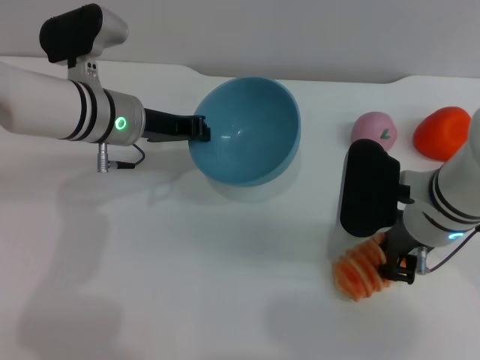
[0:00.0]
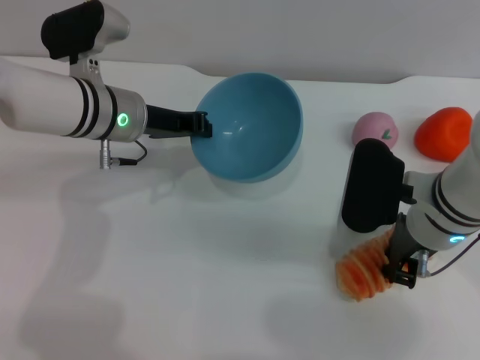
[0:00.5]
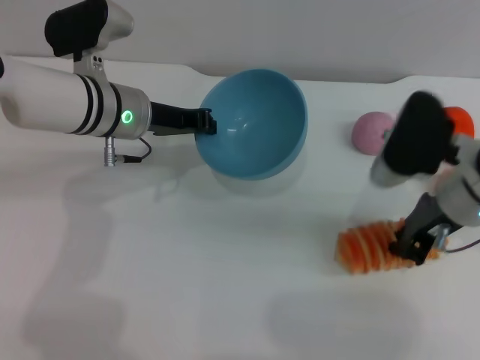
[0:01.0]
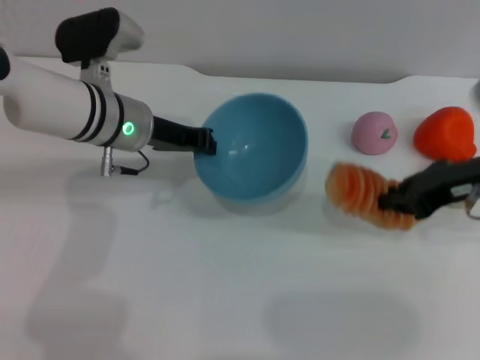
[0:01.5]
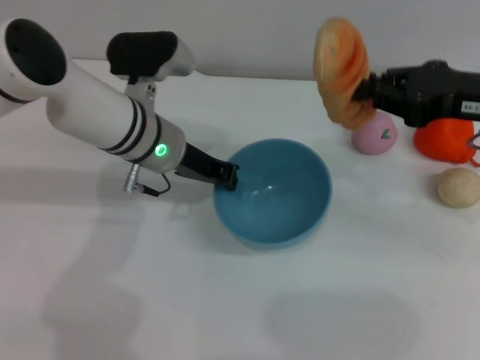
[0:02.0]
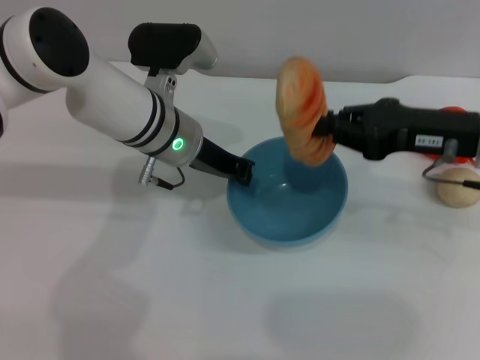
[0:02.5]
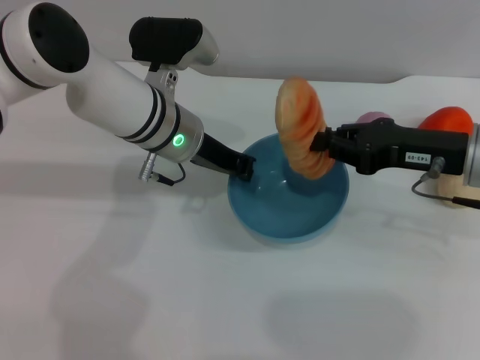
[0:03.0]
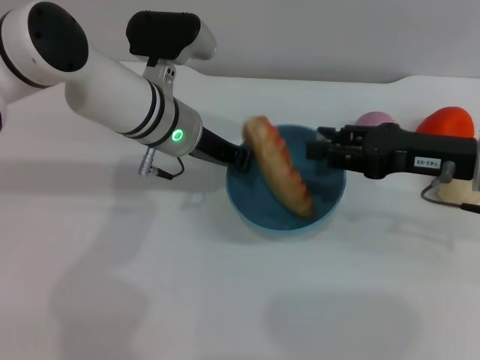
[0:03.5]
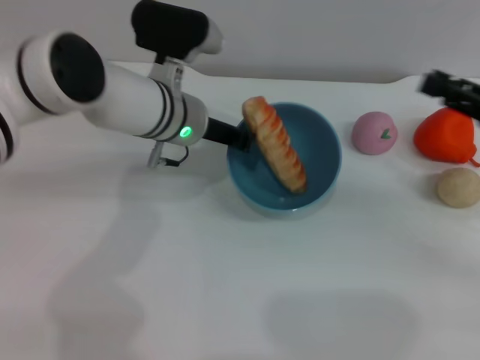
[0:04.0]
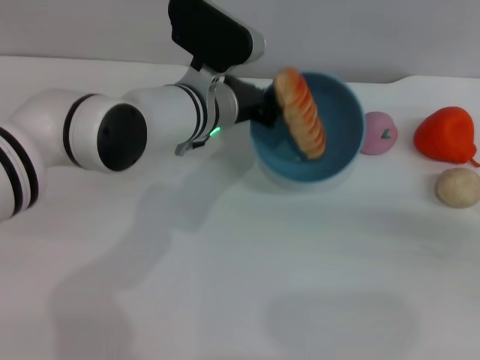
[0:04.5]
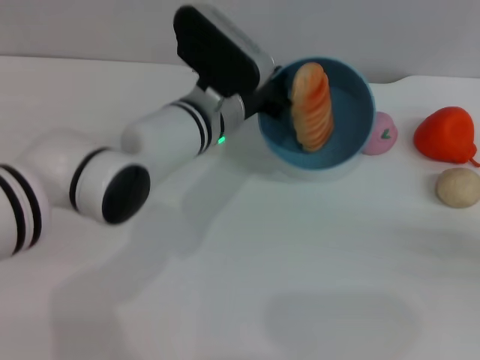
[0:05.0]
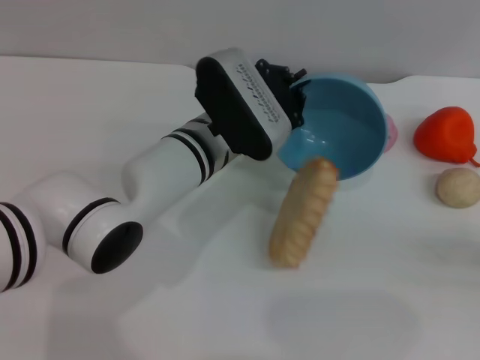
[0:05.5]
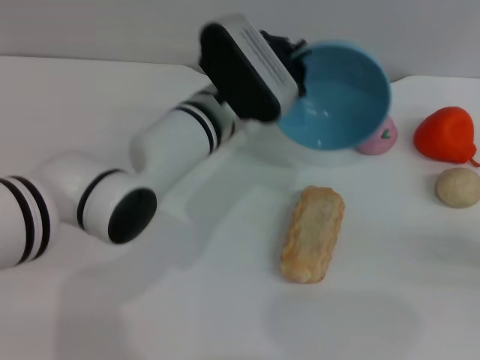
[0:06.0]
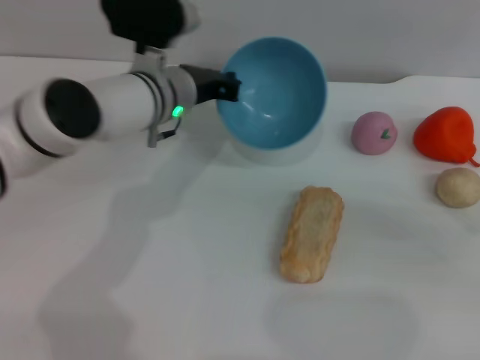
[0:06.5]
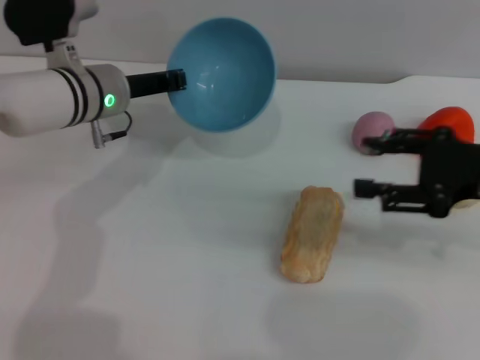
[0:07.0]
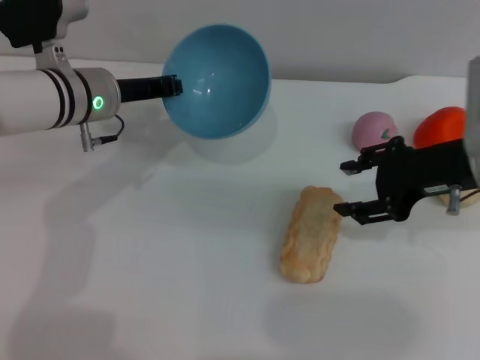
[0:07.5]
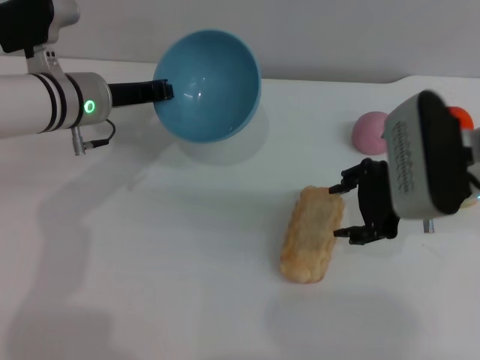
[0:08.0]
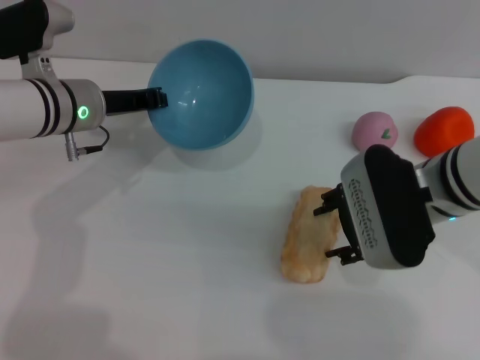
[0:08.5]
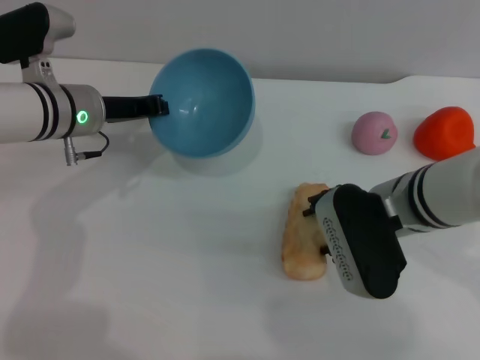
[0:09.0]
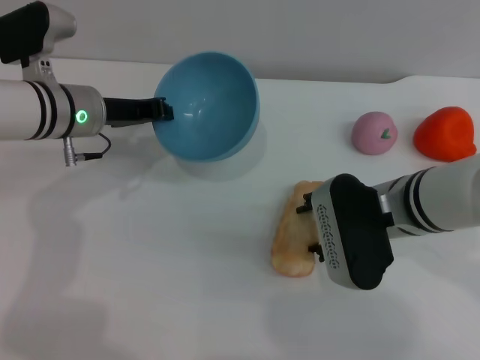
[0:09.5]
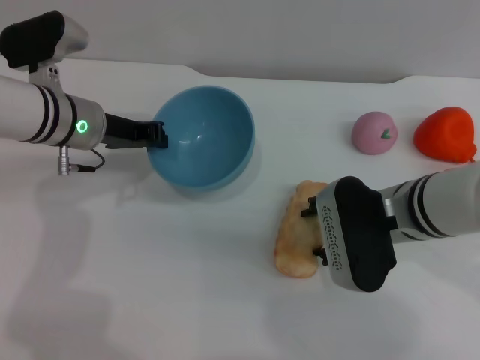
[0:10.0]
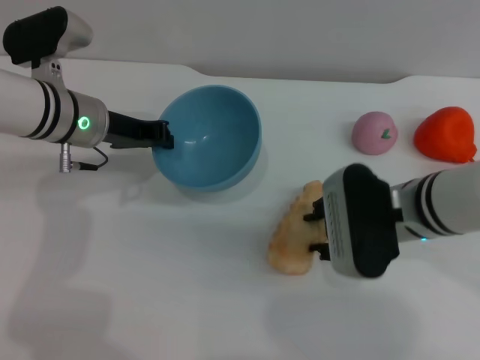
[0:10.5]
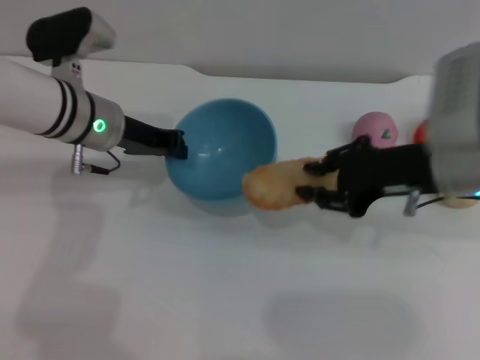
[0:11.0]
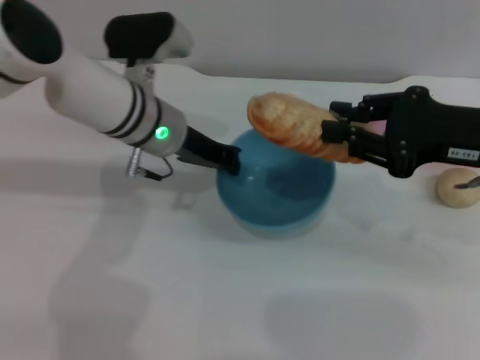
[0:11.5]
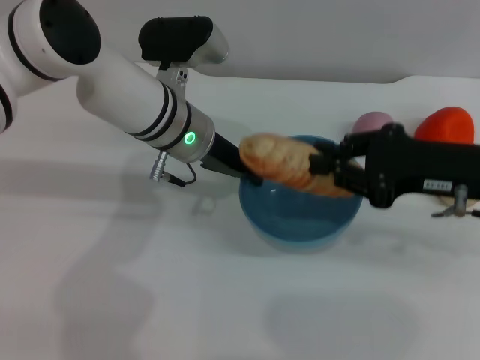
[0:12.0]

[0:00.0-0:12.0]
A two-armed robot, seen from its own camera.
Task of the whole recording: put the bread into the blue bowl and pour it out repeatedly.
Step, 0:02.0 to 0:03.5: Place the bread into the bowl.
Step, 0:04.0 to 0:05.5: Pour the bread out of the bowl.
Step, 0:06.5 to 0:11.0: Pick up the bread with the right gripper.
0:00.0 to 0:02.0: The right gripper moves to the right and upward, some 15 cm, and closes.
0:02.0 to 0:04.0: The right gripper is displaced to the right and downward by approximately 10 cm, and opens up.
0:04.0 to 0:06.0: The left gripper shifts by some 5 cm, while the right gripper is displaced to the right and backward by roughly 15 cm.
0:06.0 to 0:08.0: The left gripper heads to the left, covering some 15 cm. Meanwhile the right gripper goes about 30 cm to the left and forward.
0:08.0 to 0:10.0: The right gripper shifts approximately 5 cm downward.
0:10.0 to 0:12.0: The left gripper travels to the right by approximately 10 cm. Meanwhile the right gripper is displaced to the right and upward by some 10 cm, and closes its fingers.

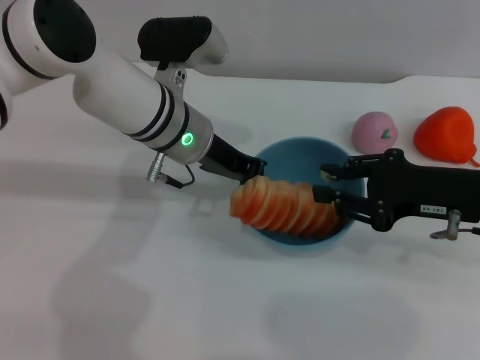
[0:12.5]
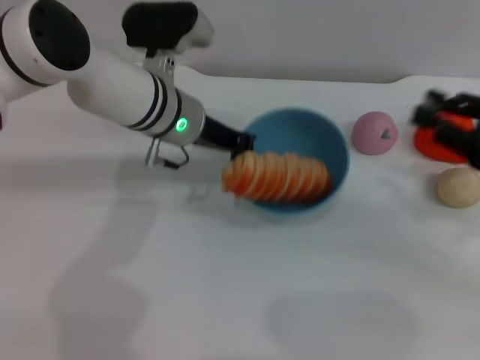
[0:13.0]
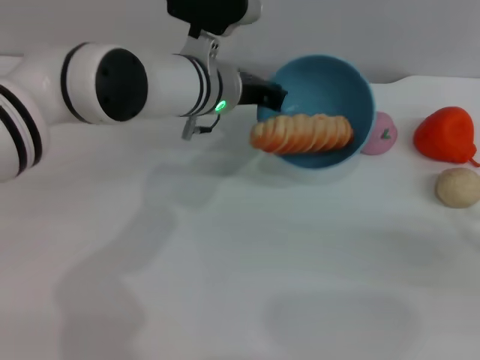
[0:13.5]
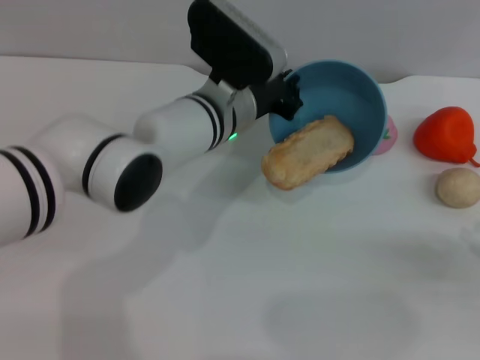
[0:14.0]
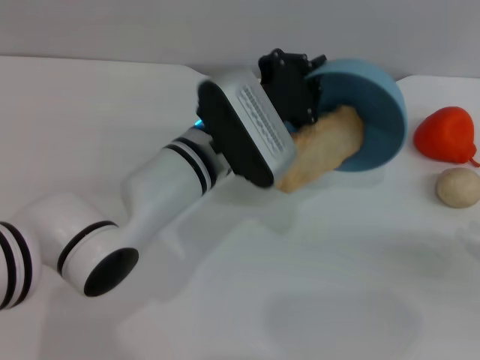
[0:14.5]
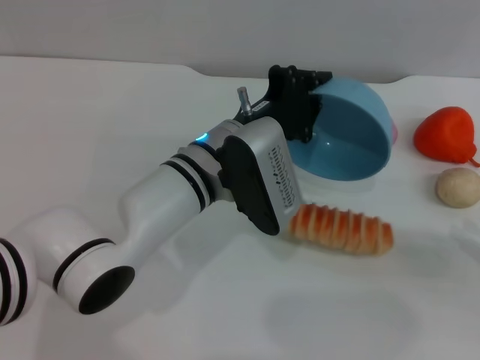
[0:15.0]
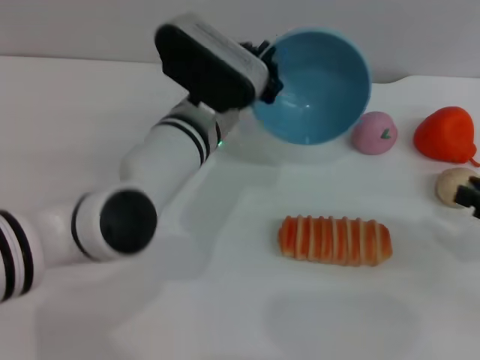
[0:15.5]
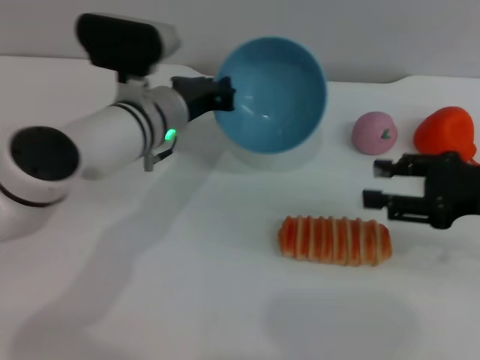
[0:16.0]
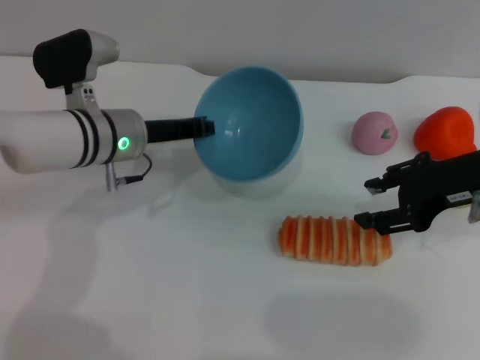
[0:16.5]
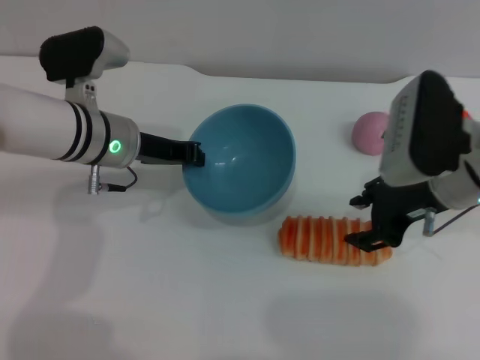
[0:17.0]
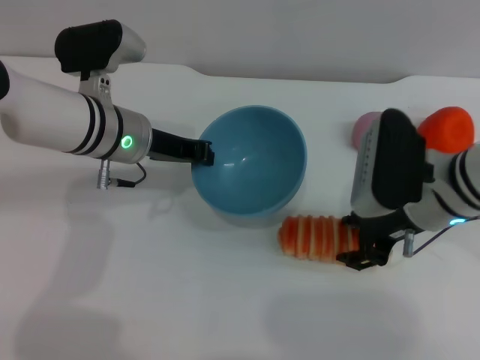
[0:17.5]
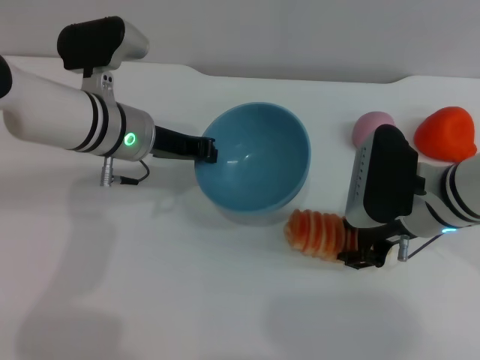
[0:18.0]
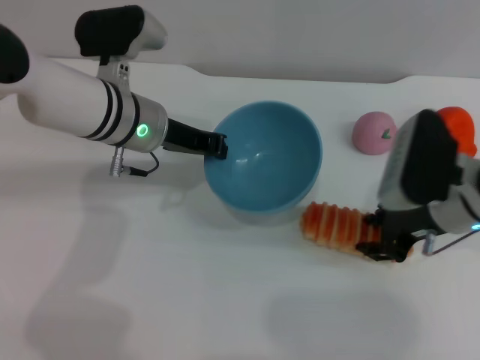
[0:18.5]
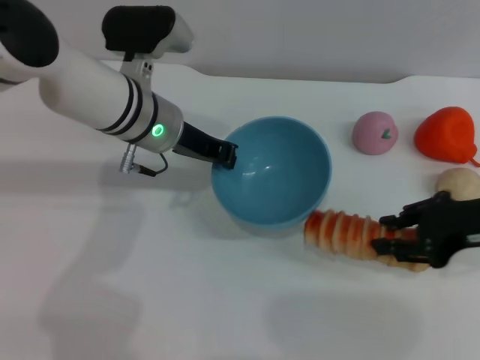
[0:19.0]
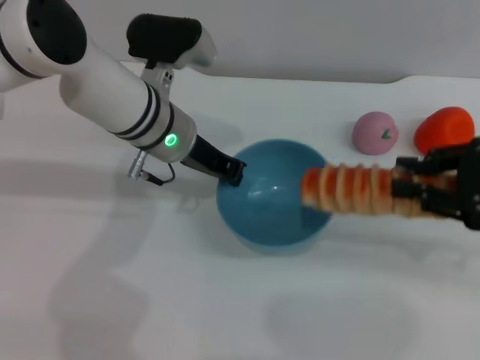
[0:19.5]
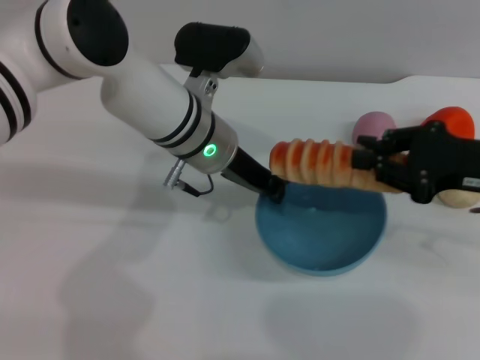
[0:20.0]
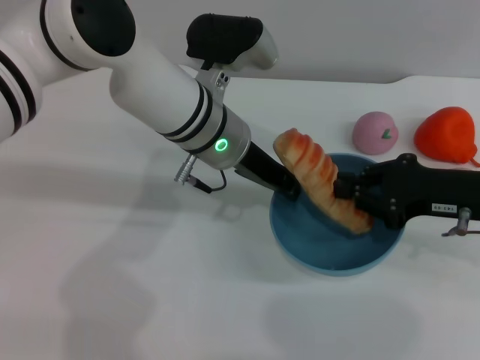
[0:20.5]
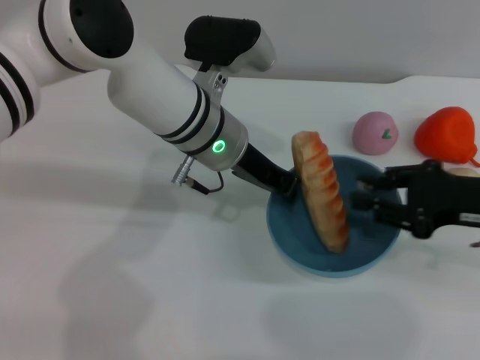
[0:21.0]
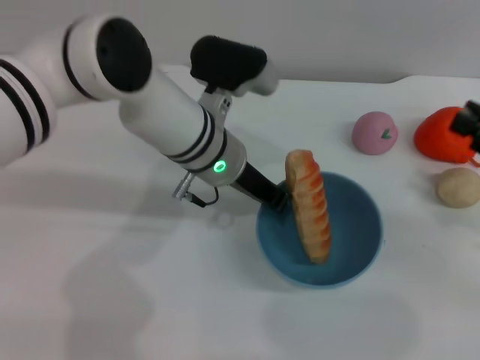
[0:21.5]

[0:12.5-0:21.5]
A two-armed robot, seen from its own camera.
Task of the whole recording: put the bread into the blue bowl and pour it out repeatedly.
Step, 0:13.0 to 0:15.0: Pour the bread out of the bowl.
Step, 0:15.5 to 0:19.0: Pick up the bread with the right gripper.
Step, 0:19.5 to 0:21.0: Place the bread into the bowl.
0:12.5 to 0:14.5: The left gripper ends up approximately 5 cm from where it was. The right gripper moves to the right and backward, some 15 cm.
0:14.5 to 0:17.0: The right gripper shifts roughly 25 cm to the left and forward, and opens its fingers, while the left gripper shifts roughly 10 cm to the left.
0:17.0 to 0:19.5: The left gripper goes about 5 cm to the right. Meanwhile the right gripper goes roughly 15 cm to the right and backward, and closes.
0:19.5 to 0:21.5: The left gripper goes some 5 cm to the right; the right gripper shifts by some 5 cm.

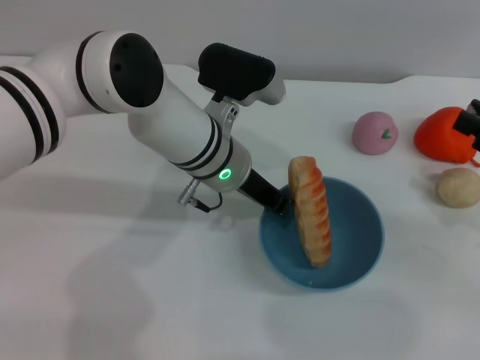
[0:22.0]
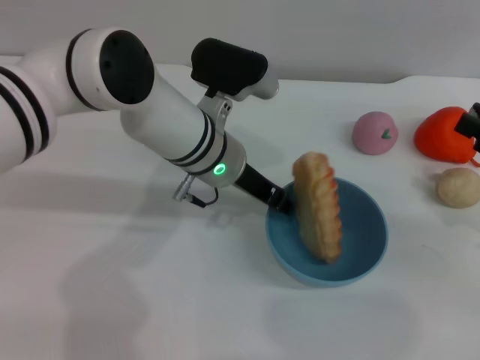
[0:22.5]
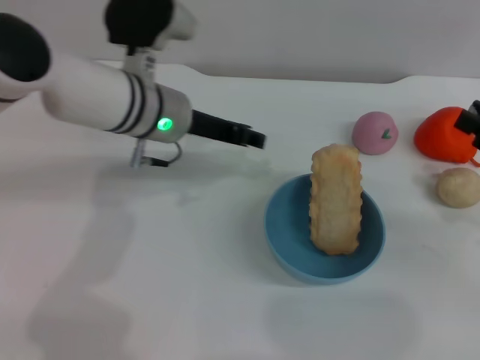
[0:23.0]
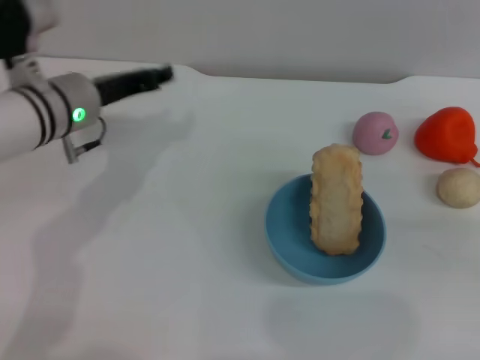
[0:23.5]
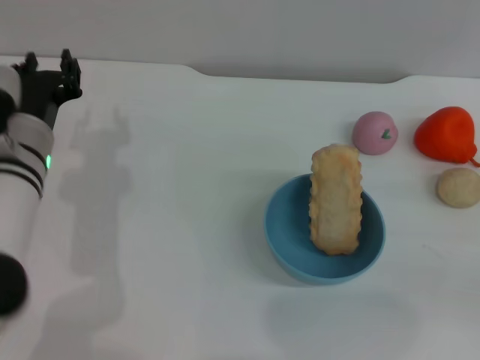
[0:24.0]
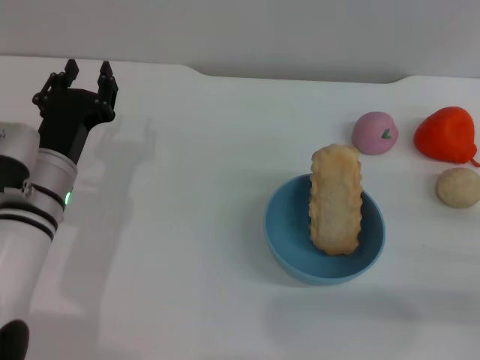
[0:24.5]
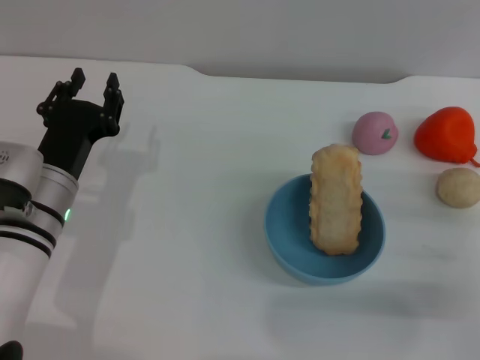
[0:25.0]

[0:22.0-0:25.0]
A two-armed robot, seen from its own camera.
Task of the whole recording: put the bread into the blue bowl and pour it out repeatedly.
0:22.0 to 0:23.5: The left gripper goes some 15 cm to the left, and opens up.
0:23.5 to 0:25.0: The left gripper goes roughly 10 cm backward and downward; the right gripper shifts some 10 cm downward and backward.
